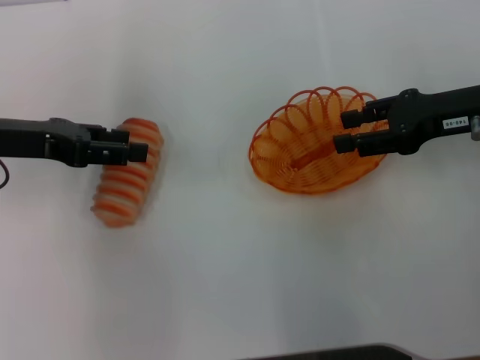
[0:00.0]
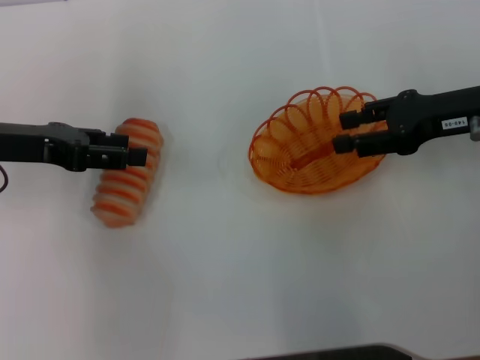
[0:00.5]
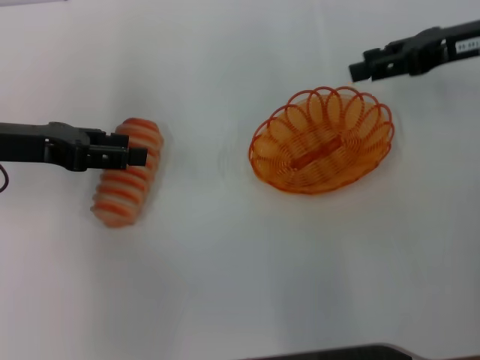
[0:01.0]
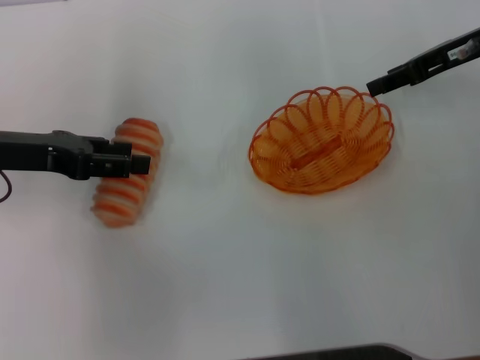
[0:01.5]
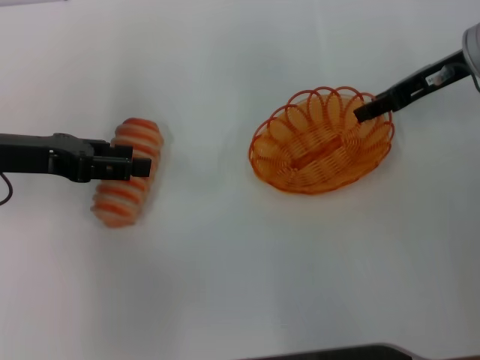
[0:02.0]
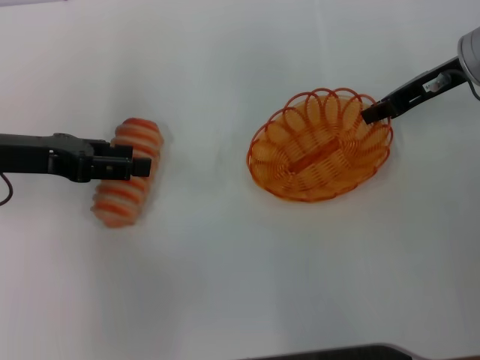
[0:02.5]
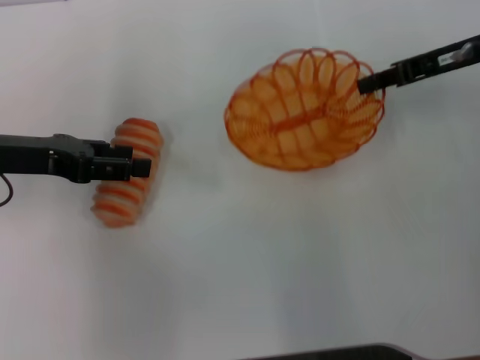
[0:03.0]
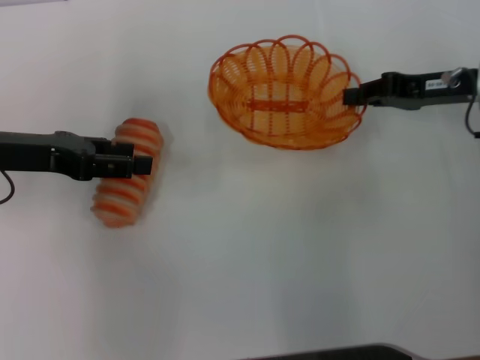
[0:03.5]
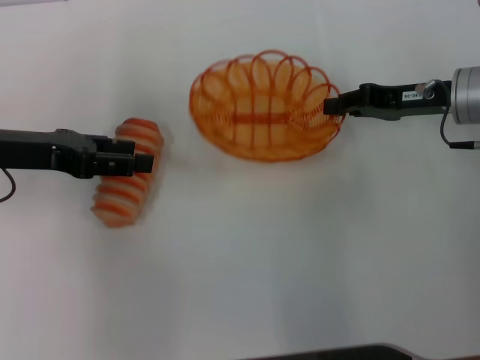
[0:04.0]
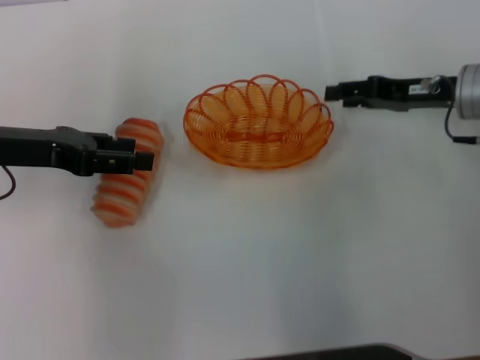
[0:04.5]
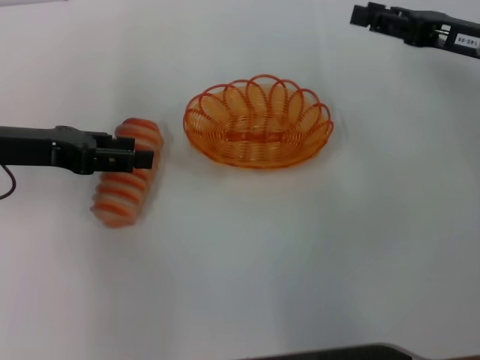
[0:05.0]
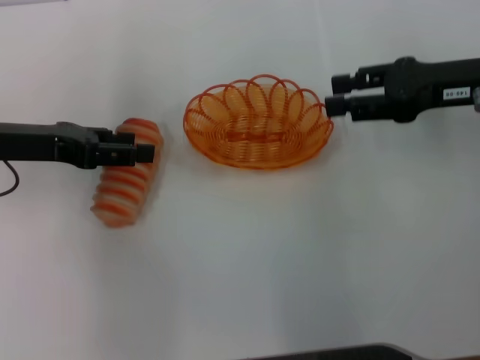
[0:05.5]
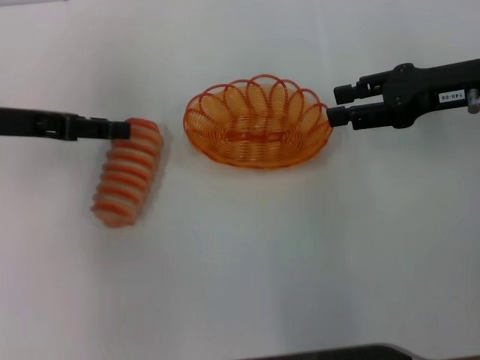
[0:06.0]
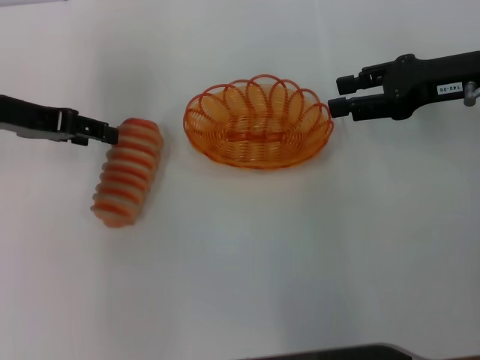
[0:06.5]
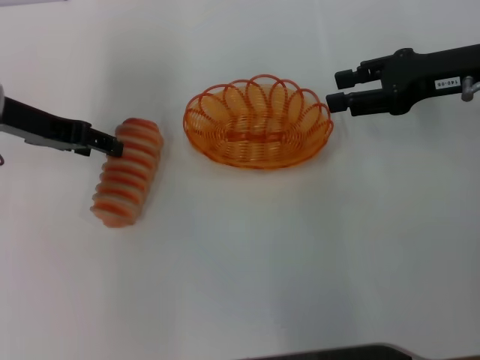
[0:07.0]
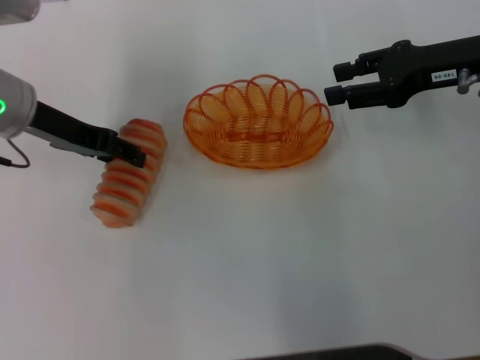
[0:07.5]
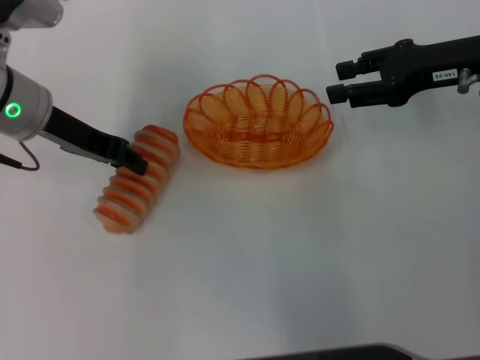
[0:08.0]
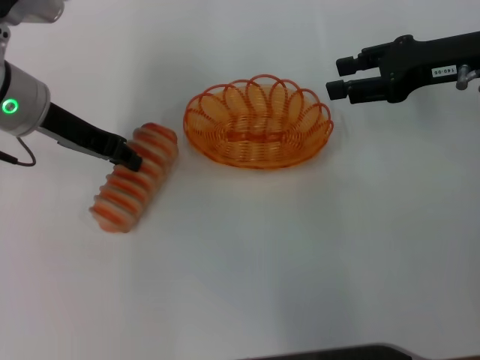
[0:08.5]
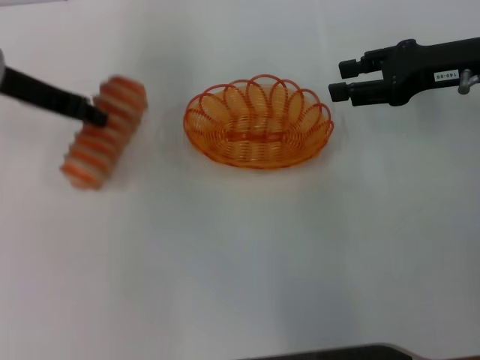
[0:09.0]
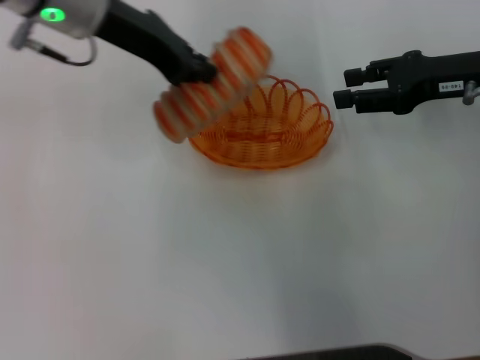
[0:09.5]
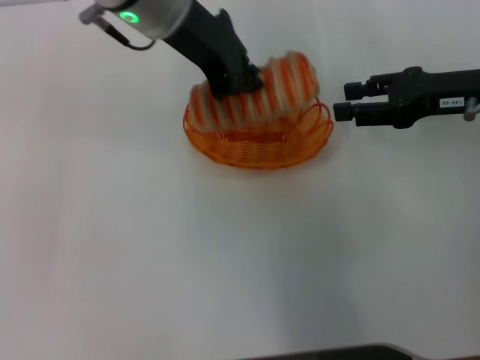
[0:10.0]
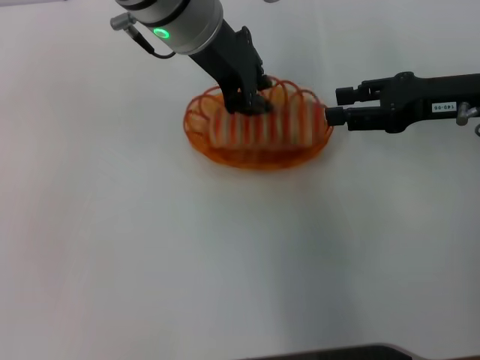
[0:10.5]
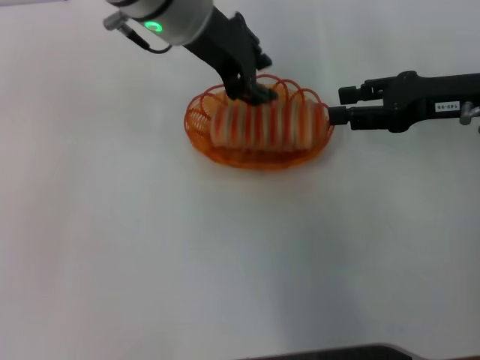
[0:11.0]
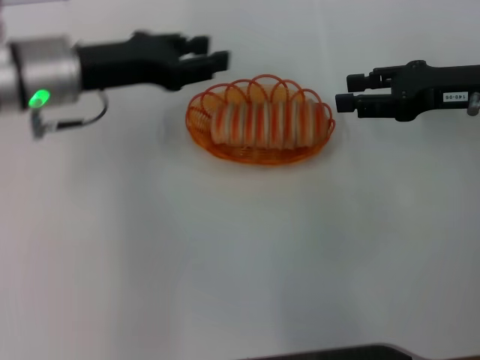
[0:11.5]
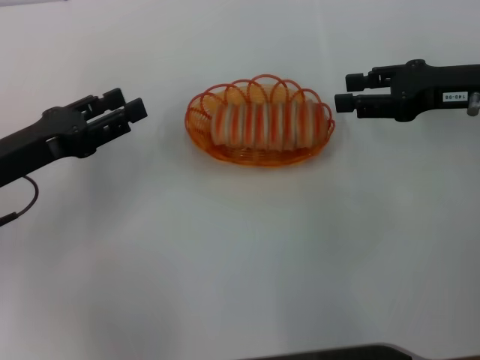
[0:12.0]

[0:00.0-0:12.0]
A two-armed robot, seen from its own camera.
Step, 0:00.0 to 0:02.5: Pick up the basket with the right gripper.
Step, 0:03.0 to 0:04.0: Place the basket in the center of view with the right gripper.
Step, 0:04.5 to 0:08.5: Pick up the long bread with the left gripper.
Step, 0:09.0 to 0:11.0: Place the long bread into the basket with the left gripper.
0:00.0 to 0:02.0: The right gripper is displaced forward by some 5 cm.
0:02.0 to 0:04.0: The right gripper changes place by roughly 5 cm, and closes.
0:04.0 to 0:06.0: The right gripper moves upward, some 5 cm, and opens its fingers.
0:06.0 to 0:08.0: The left gripper is displaced to the right by about 5 cm.
0:08.0 to 0:10.0: The left gripper is displaced to the right and upward by approximately 15 cm, and closes its fingers.
0:10.0 to 0:12.0: The left gripper shifts some 25 cm to the left, downward and backward, and opens up.
